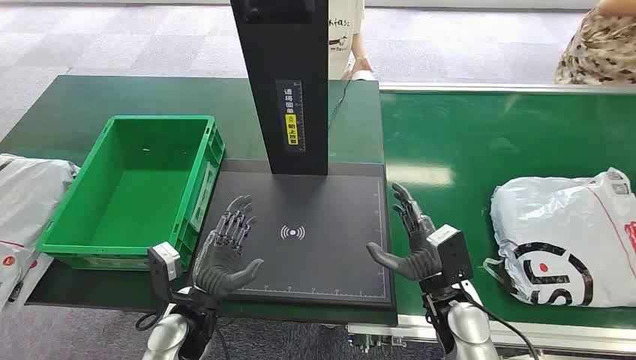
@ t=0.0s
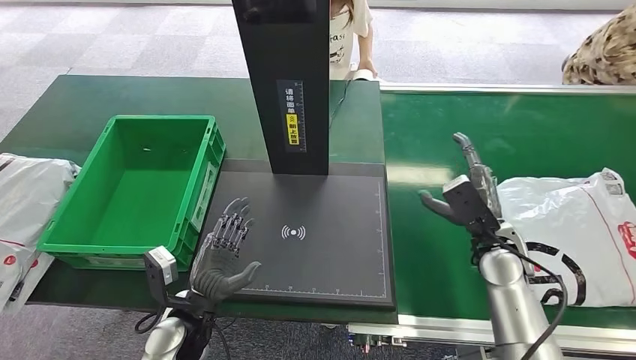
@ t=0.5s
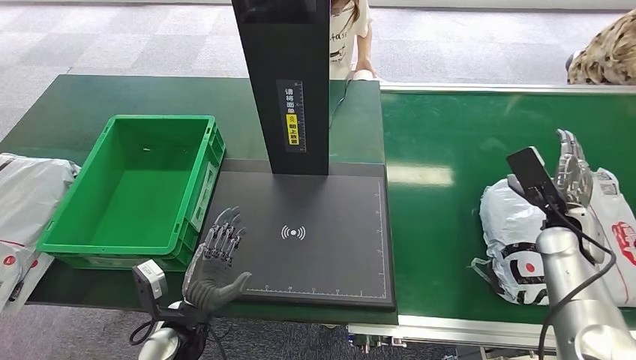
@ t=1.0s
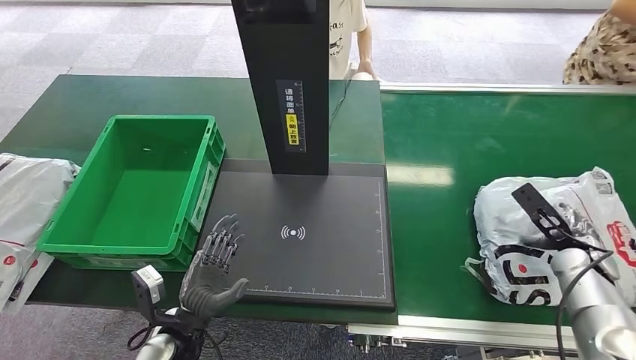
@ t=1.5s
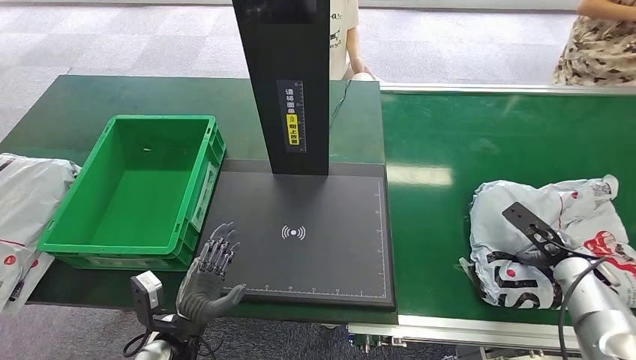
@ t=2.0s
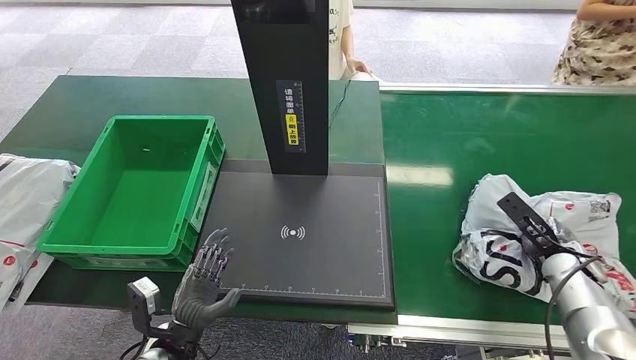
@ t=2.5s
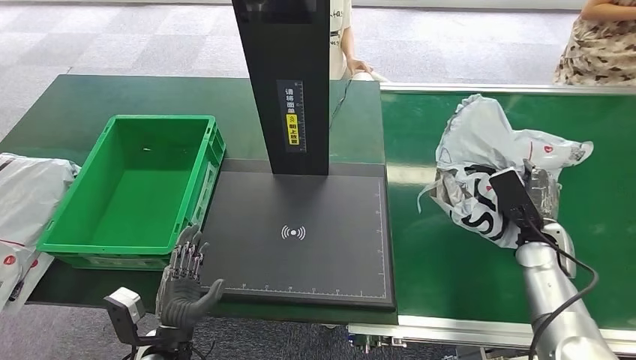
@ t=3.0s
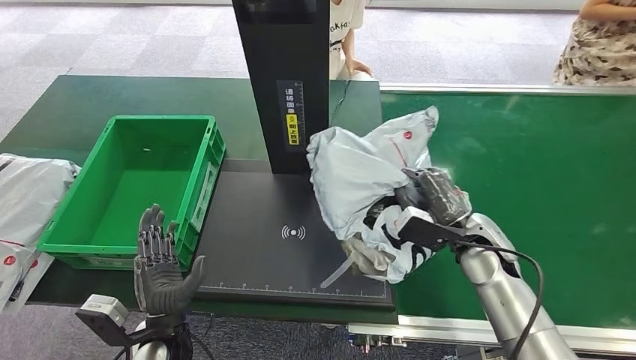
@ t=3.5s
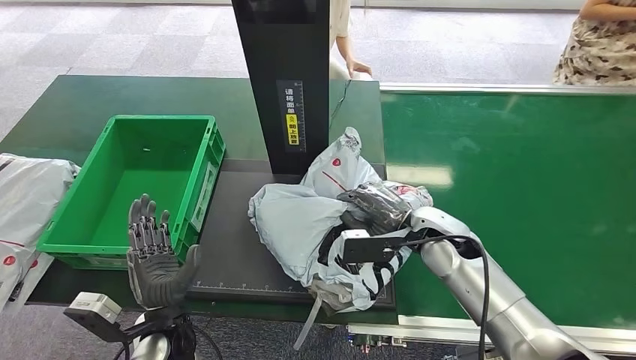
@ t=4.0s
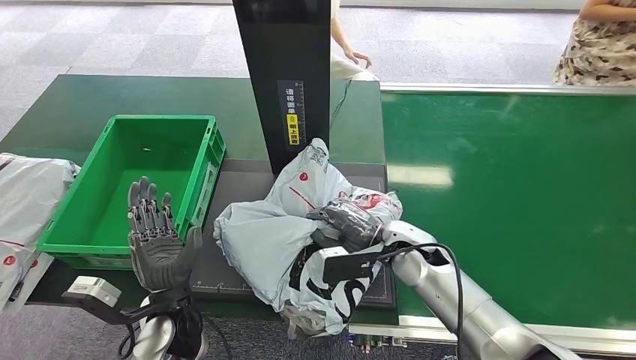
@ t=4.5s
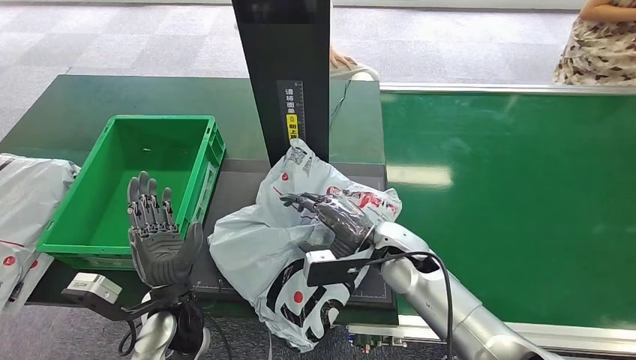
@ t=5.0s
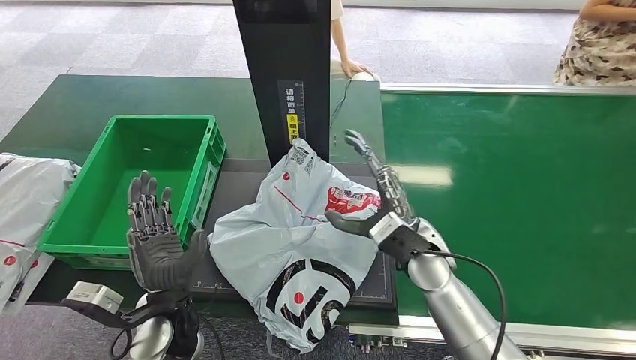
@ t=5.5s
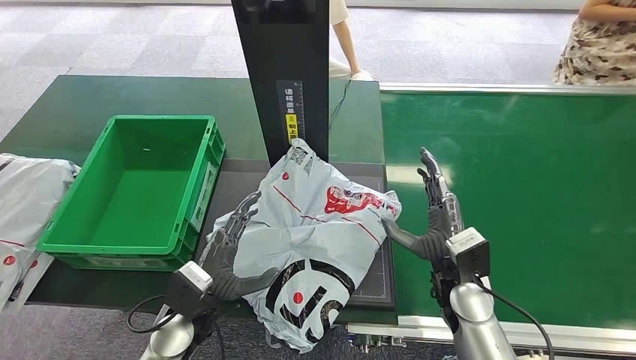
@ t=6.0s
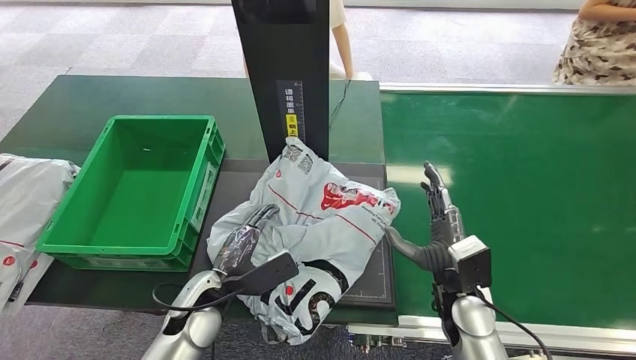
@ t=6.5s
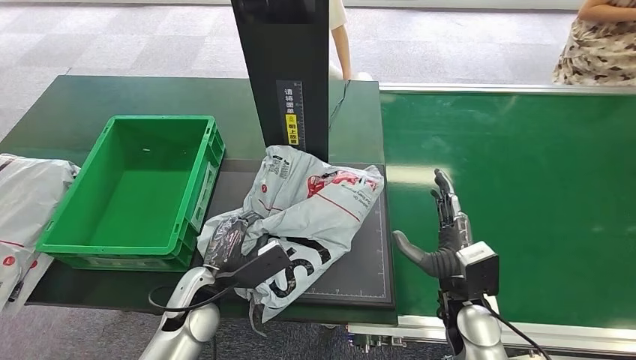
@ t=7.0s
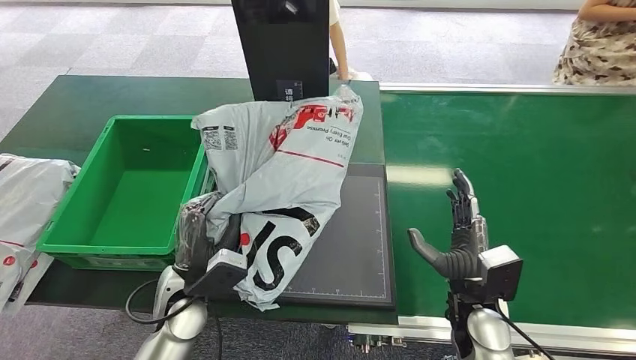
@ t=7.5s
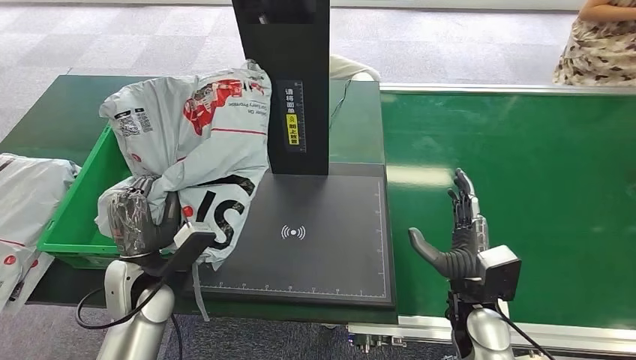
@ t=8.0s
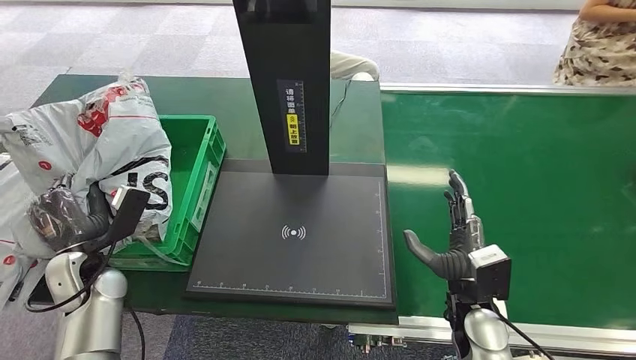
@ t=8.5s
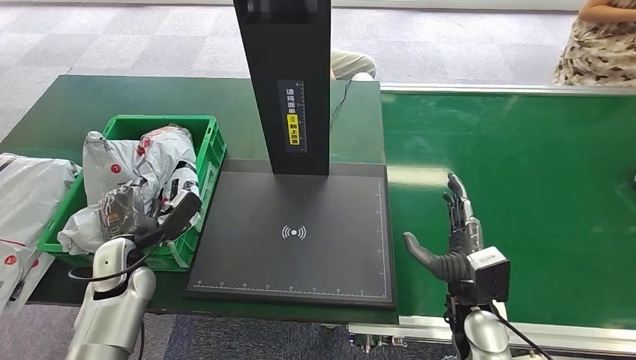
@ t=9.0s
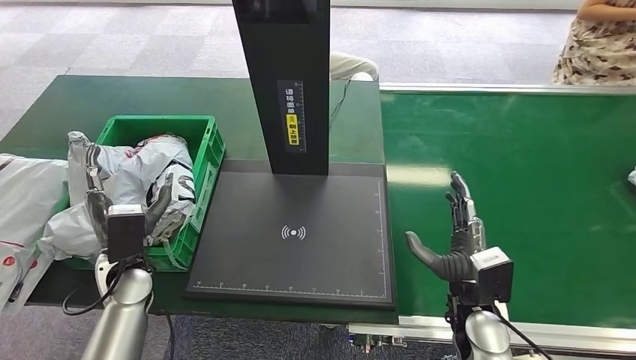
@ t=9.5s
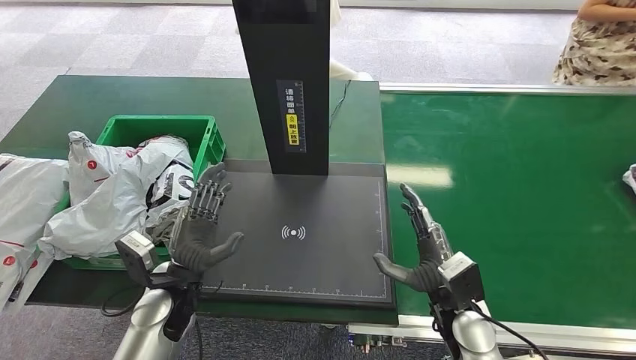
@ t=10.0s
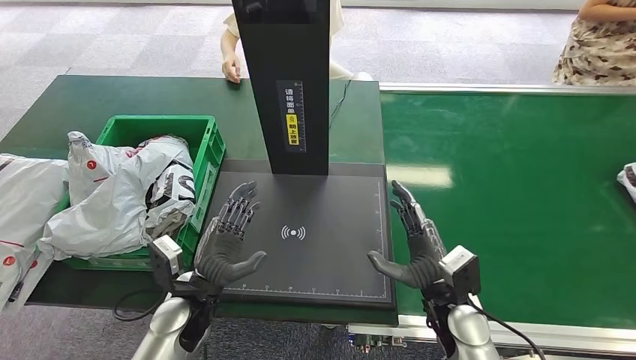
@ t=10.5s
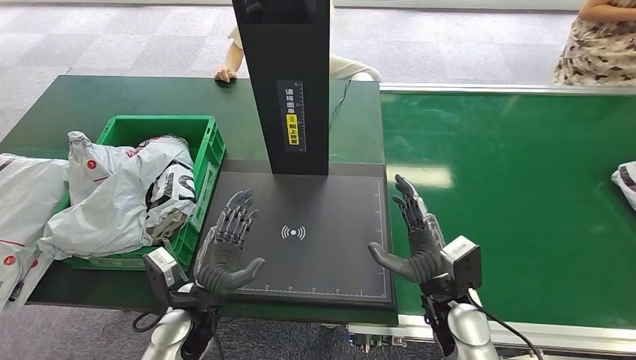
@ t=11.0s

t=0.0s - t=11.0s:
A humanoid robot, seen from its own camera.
Step, t=0.0s - t=3.0s: Pick up the package from the conveyor belt.
Step, t=3.5s - t=5.5s: Place the package onto the inbound machine.
Step, t=6.0s - t=7.5s: Pick up the package from the inbound machine.
Step, t=8.0s - t=11.0s: Place the package into the parcel locker.
t=9.0s - t=11.0s: The left hand goes roughly 15 cm to the right and backward.

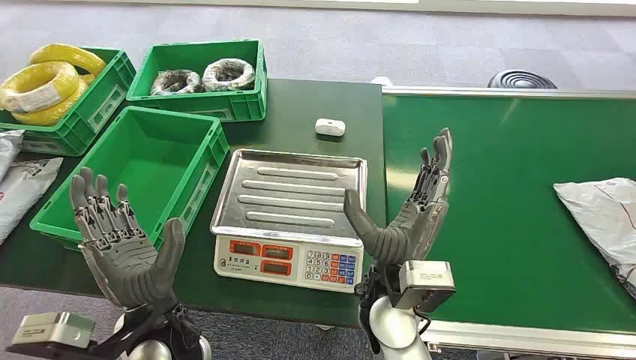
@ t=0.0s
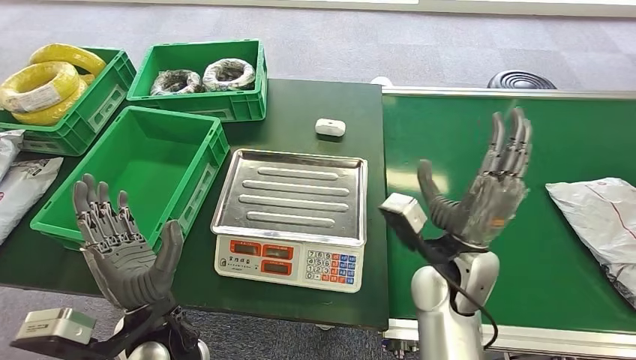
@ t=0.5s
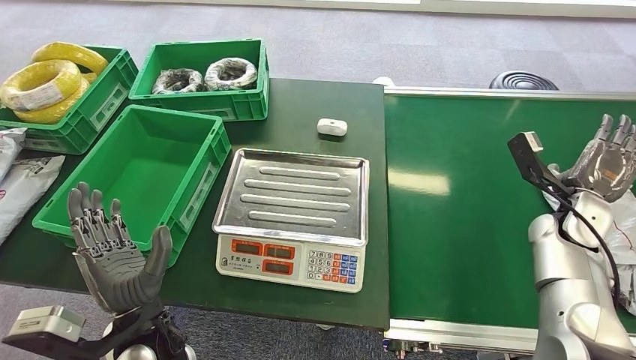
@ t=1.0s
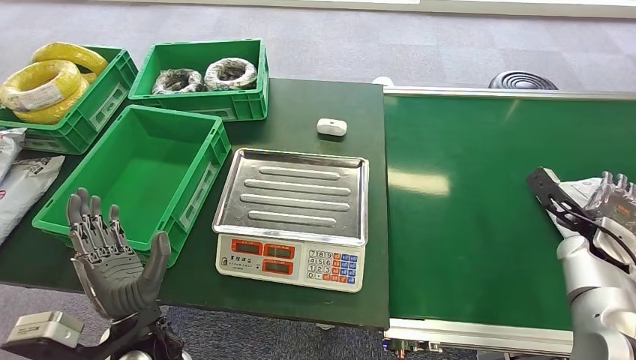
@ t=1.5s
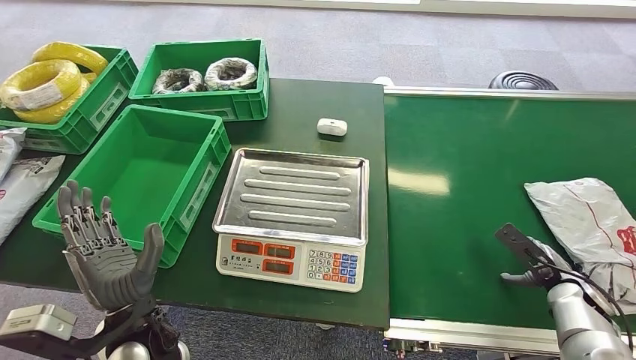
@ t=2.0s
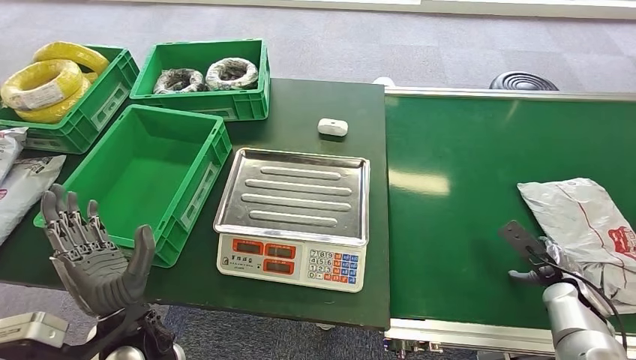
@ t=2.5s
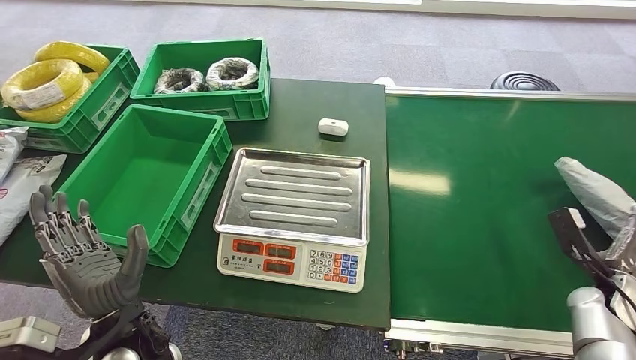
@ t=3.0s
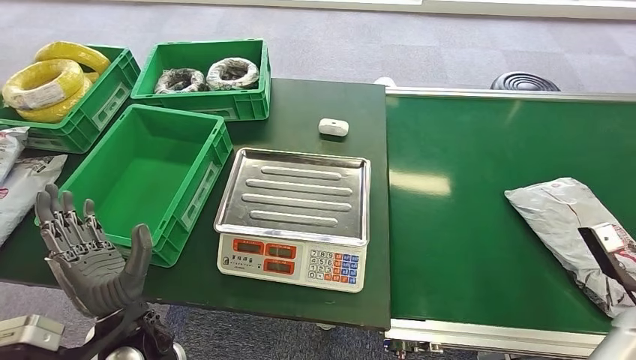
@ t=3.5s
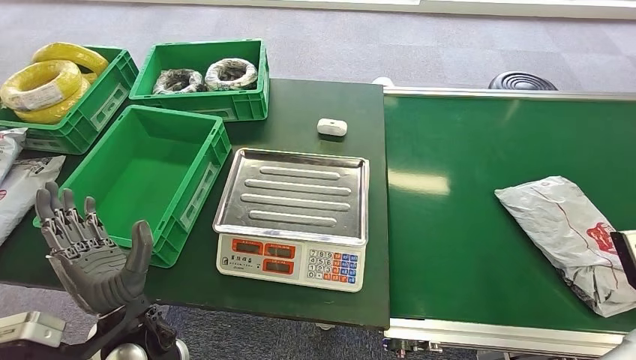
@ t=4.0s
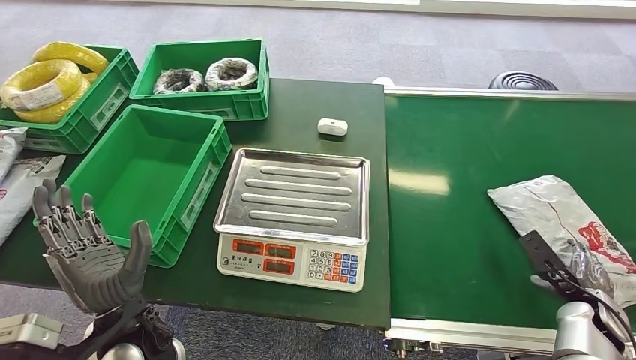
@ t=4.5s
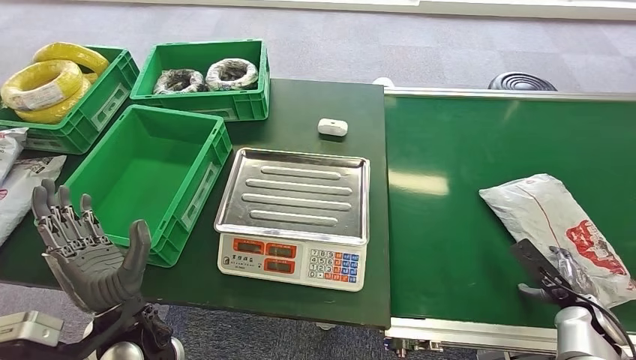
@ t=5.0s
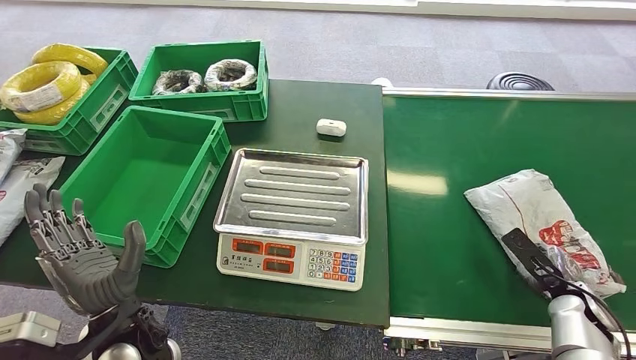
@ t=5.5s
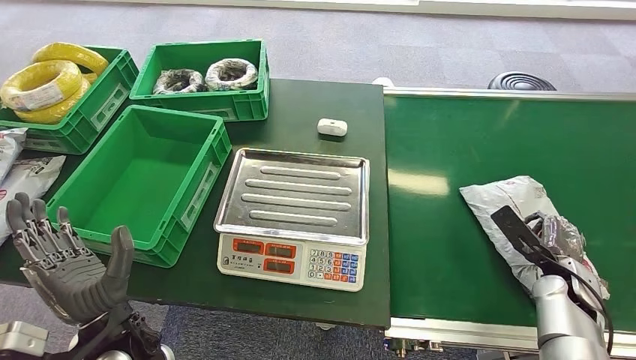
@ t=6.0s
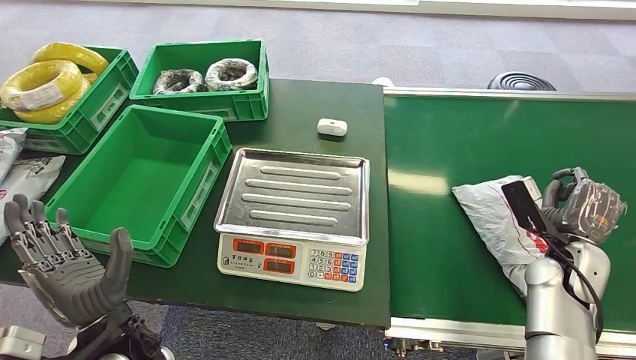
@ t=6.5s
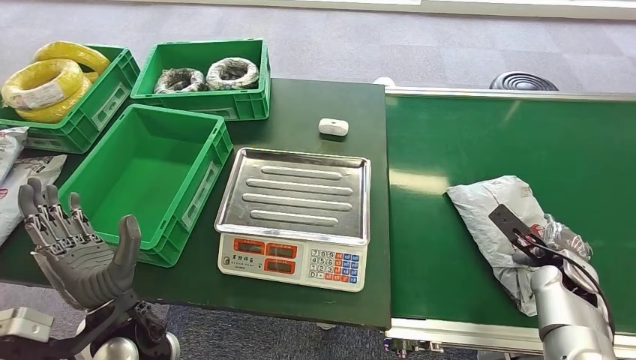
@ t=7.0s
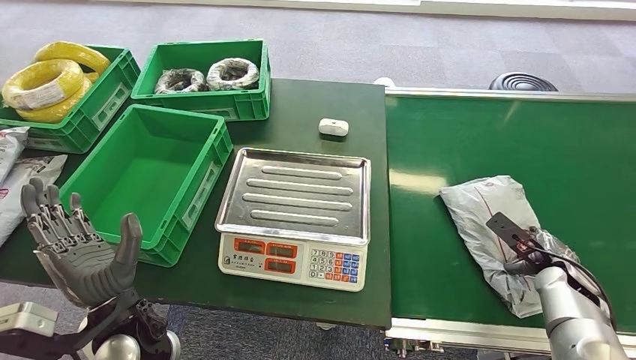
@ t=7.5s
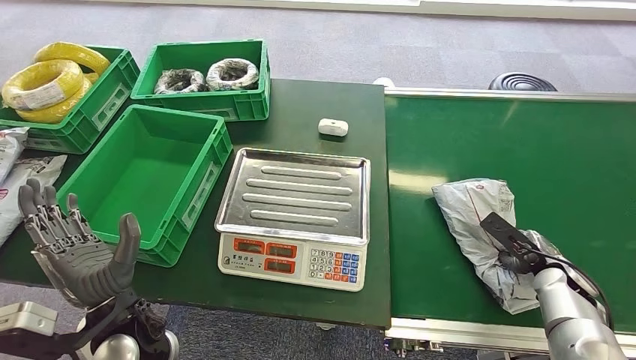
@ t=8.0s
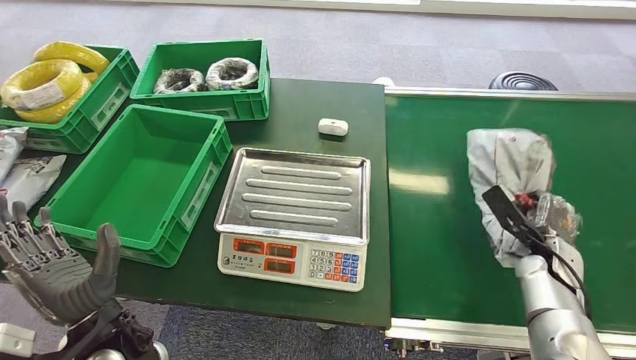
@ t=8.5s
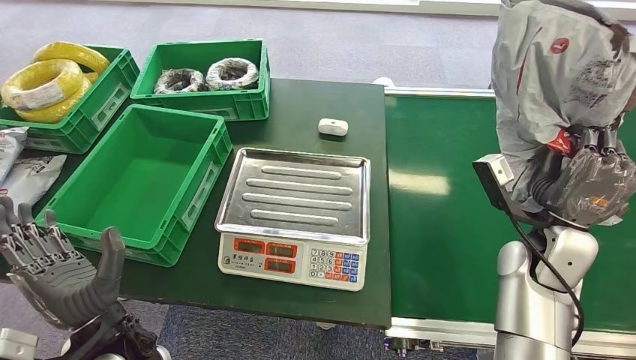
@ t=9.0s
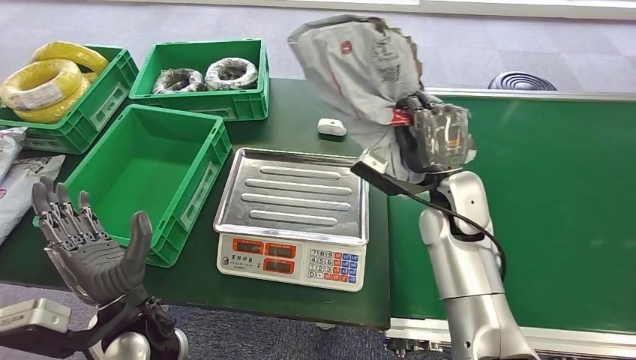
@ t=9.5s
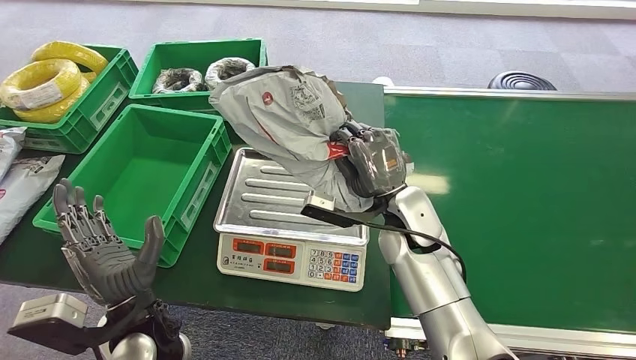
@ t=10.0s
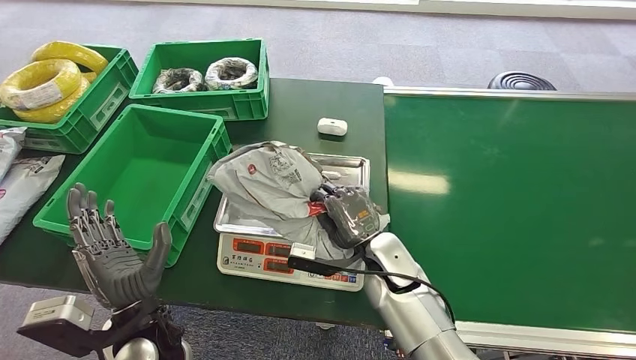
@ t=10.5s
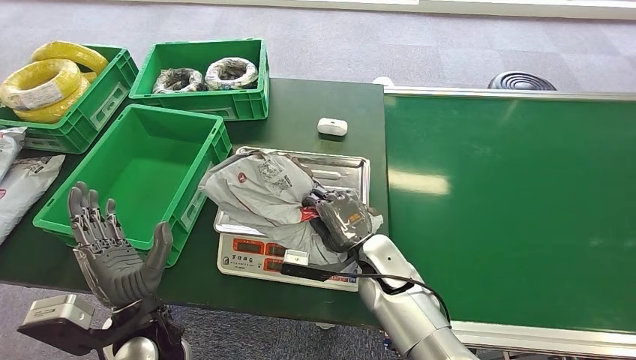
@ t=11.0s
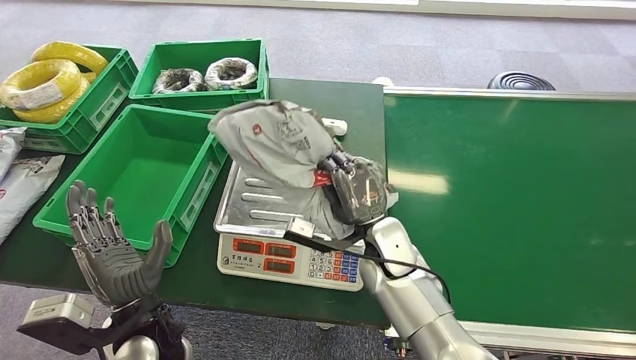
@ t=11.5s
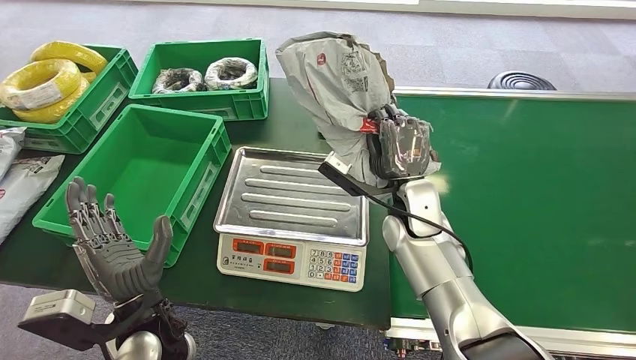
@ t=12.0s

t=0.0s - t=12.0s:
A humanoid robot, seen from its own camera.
Step, t=0.0s - t=9.0s: Pick up the package from the conveyor belt.
t=2.0s - t=4.0s: The right hand moves upward and backward, approximately 15 cm.
t=4.0s - t=6.0s: The right hand goes approximately 15 cm downward and forward.
t=10.0s - t=12.0s: The right hand travels downward and back again, some 10 cm each way.
